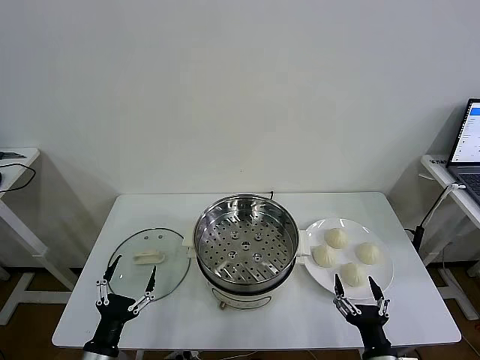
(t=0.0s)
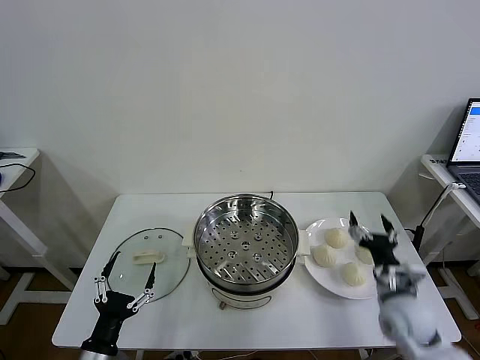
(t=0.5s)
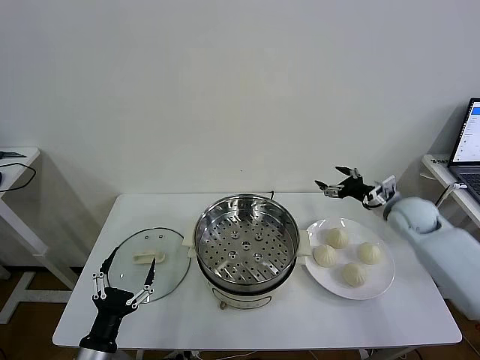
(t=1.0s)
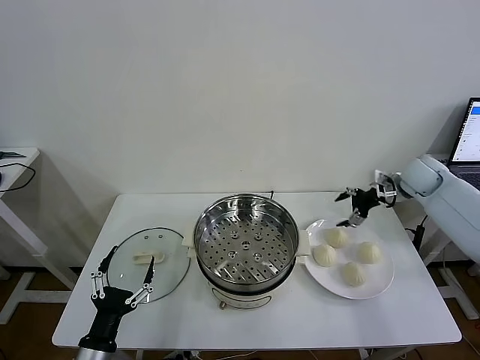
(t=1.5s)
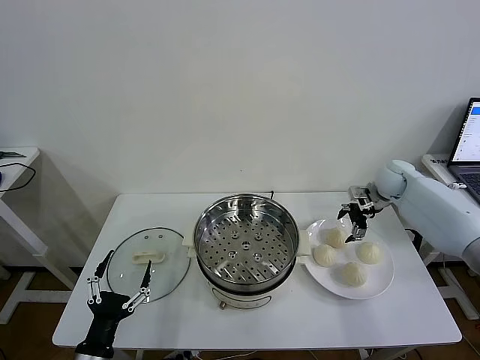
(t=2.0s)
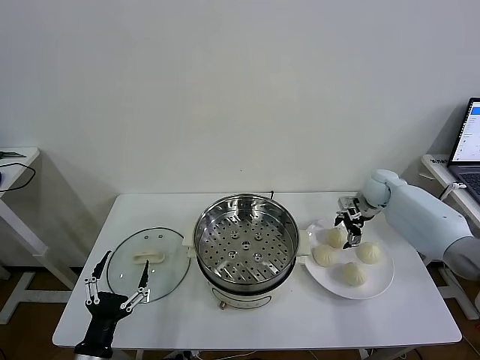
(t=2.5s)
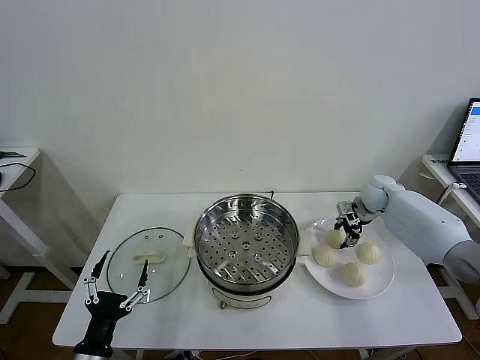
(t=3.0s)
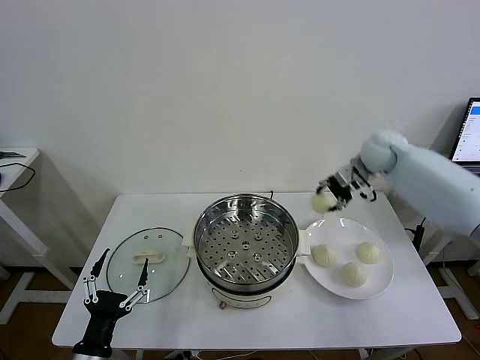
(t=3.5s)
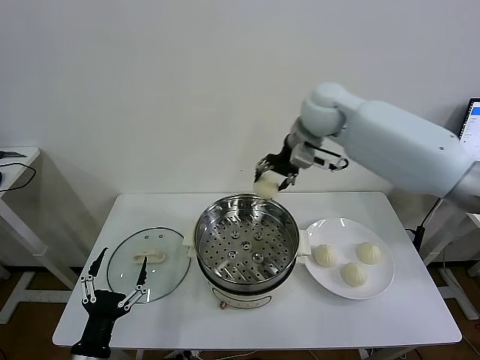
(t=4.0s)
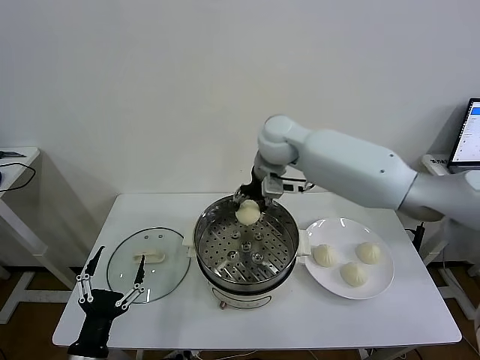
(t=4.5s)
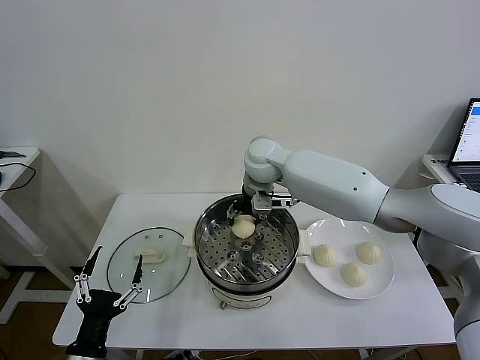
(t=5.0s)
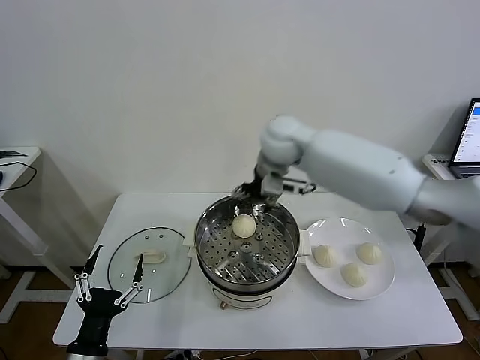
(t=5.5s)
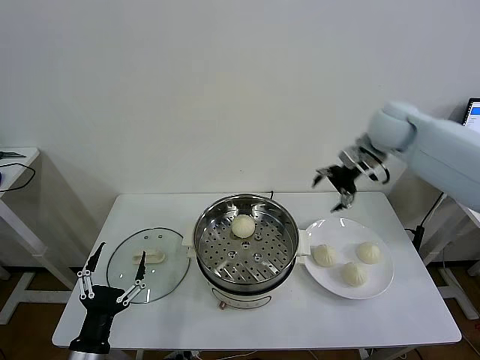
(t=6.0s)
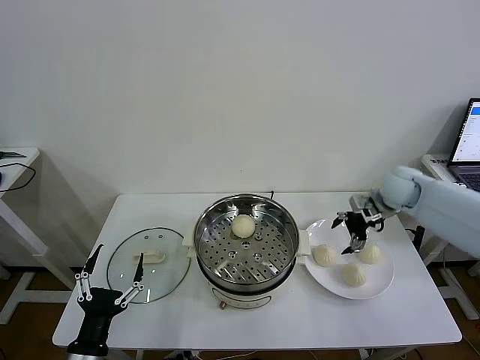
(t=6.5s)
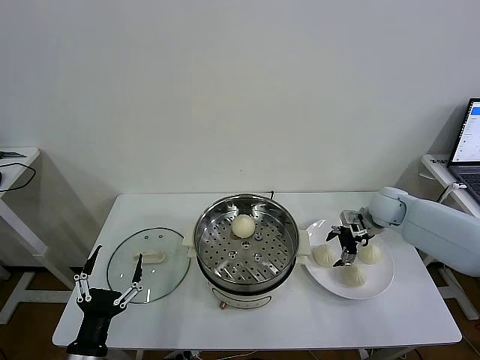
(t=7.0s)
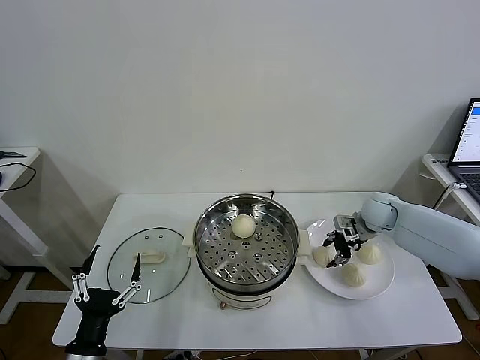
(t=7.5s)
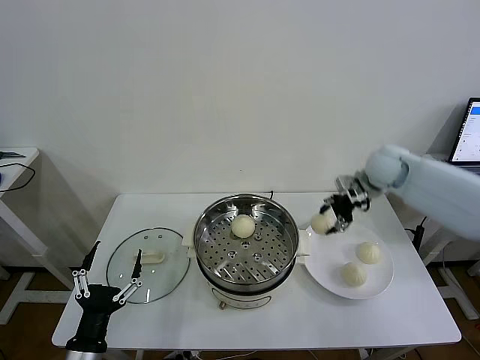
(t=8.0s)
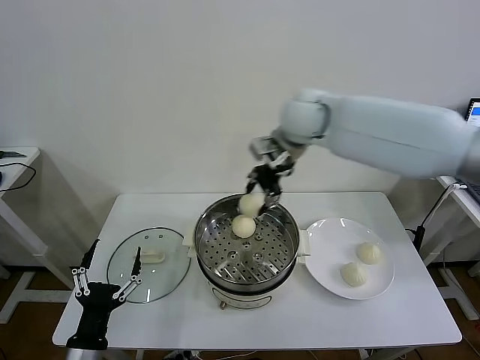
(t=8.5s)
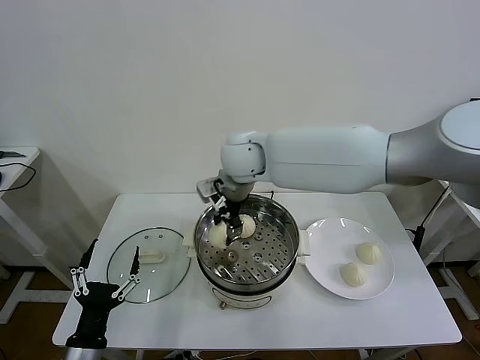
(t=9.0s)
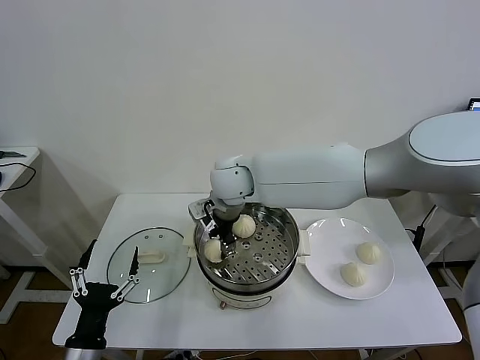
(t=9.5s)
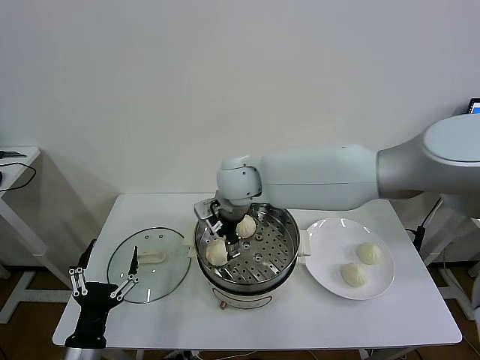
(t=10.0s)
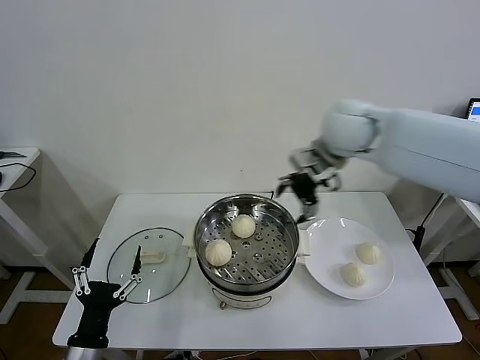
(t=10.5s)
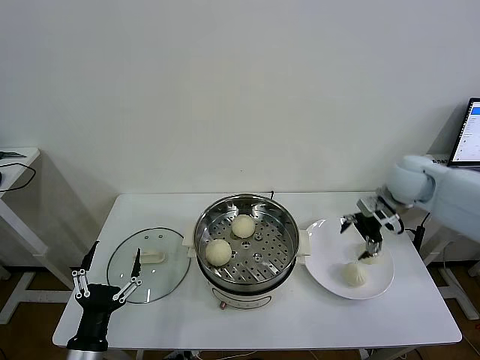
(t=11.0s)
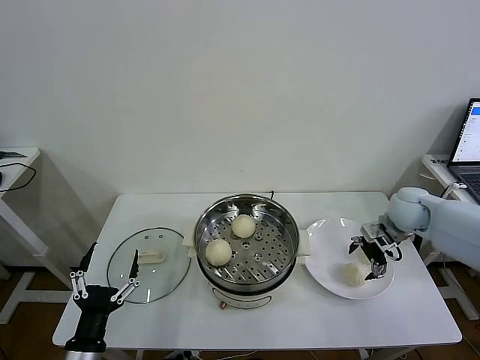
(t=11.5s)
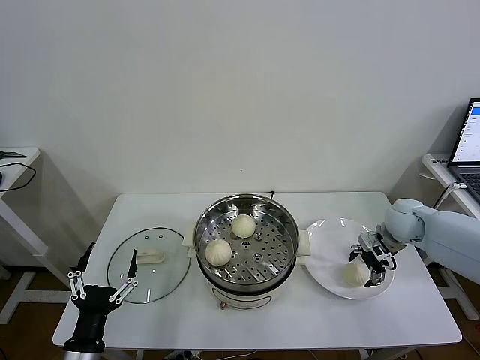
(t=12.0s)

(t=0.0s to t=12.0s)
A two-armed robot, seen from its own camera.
Task of the whole recording: take steamed baozi put them in steamer then cover it.
Step, t=0.0s - t=2.5s: Grasp the baozi in the plate with right gripper.
Step, t=3.0s - t=5.0s: Place the baozi on the steamer with right gripper.
Step, t=5.5s - t=7.5s: Grasp the baozi in the plate with right gripper.
Step, t=8.0s - t=9.5s: Place the baozi on the steamer with right gripper.
t=2.0s - t=4.0s: The right gripper heads to the left and upward, covering about 35 cm, and closes up.
t=4.0s - t=6.0s: The right gripper is displaced to the right by roughly 20 cm, and opens its fingers.
t=6.0s - t=8.0s: The right gripper reaches approximately 20 cm downward, then returns, and closes its fingers.
t=8.0s - t=10.0s: The right gripper heads to the left, covering roughly 30 cm, and opens.
t=10.0s - t=12.0s: The right gripper shifts roughly 40 cm to the right.

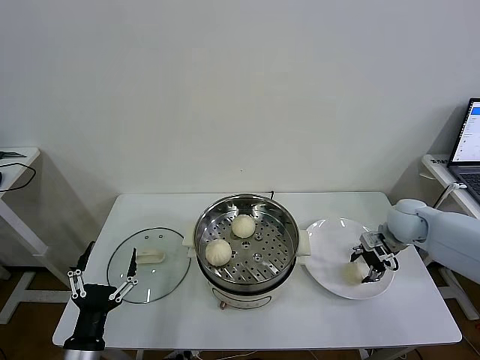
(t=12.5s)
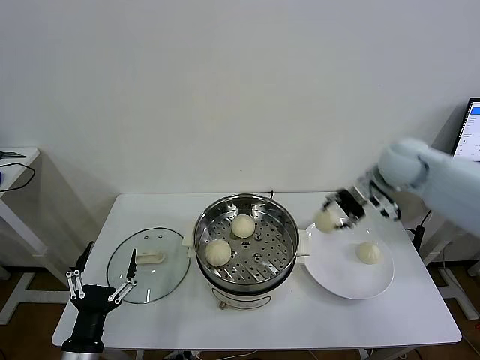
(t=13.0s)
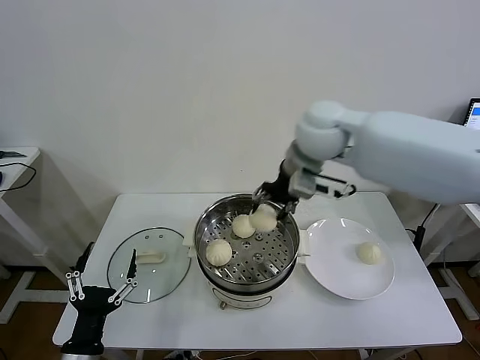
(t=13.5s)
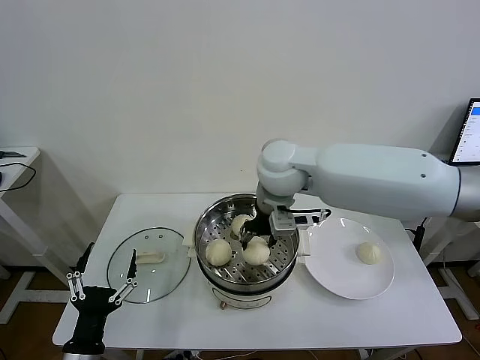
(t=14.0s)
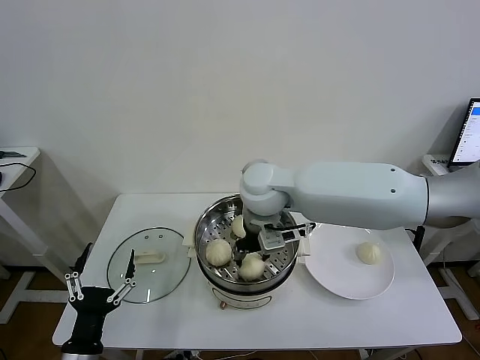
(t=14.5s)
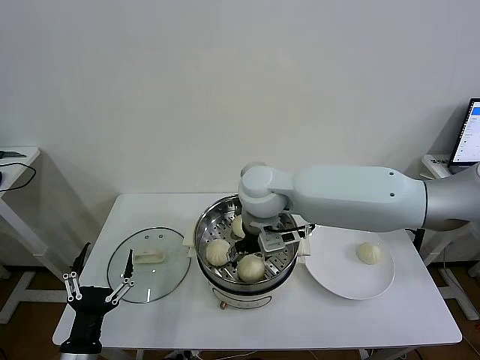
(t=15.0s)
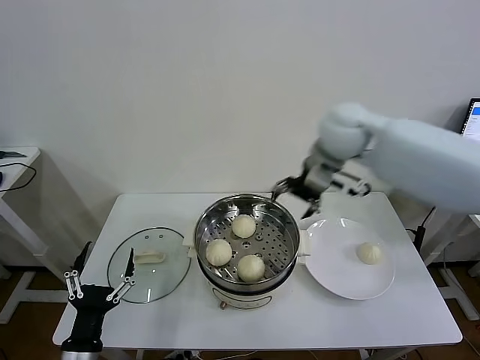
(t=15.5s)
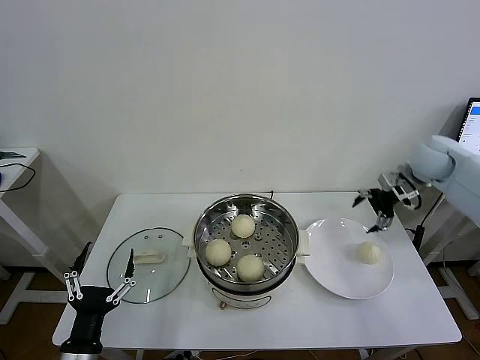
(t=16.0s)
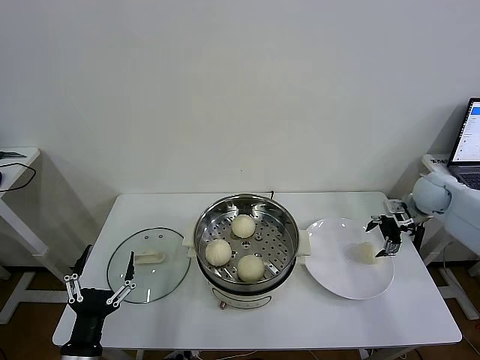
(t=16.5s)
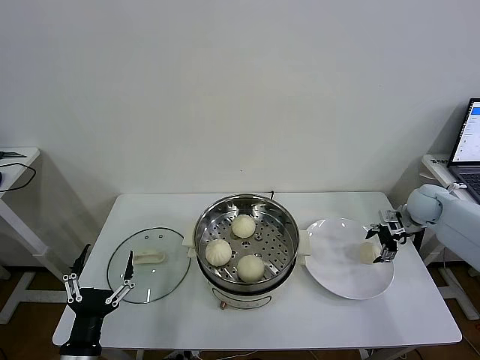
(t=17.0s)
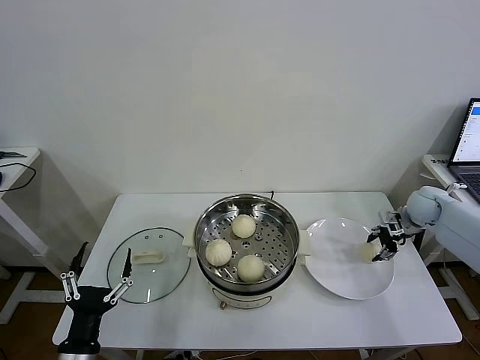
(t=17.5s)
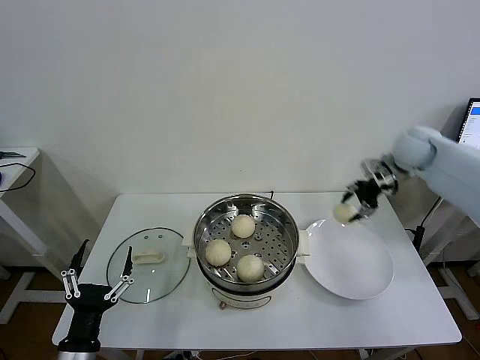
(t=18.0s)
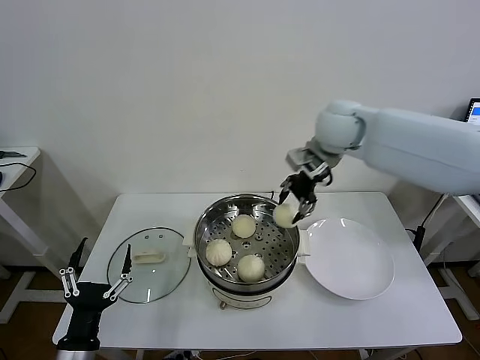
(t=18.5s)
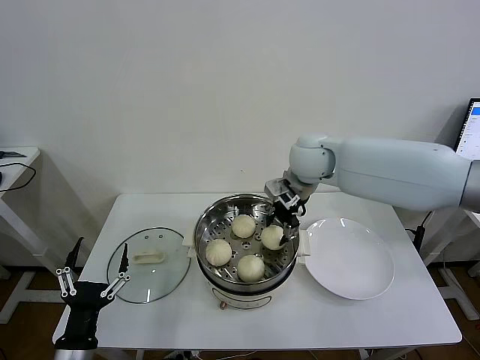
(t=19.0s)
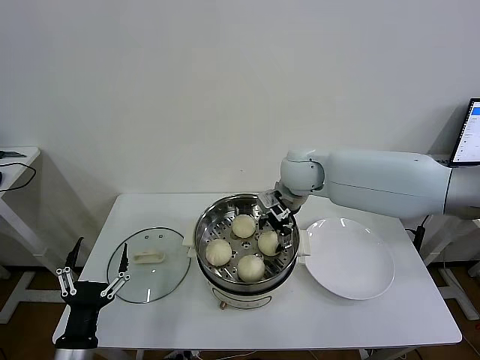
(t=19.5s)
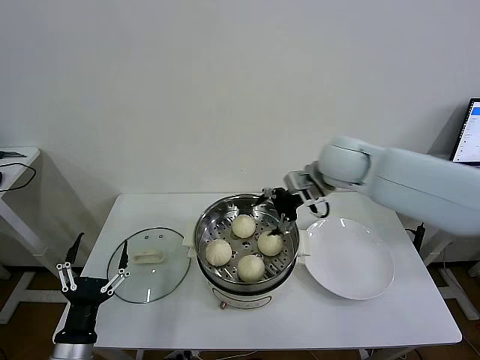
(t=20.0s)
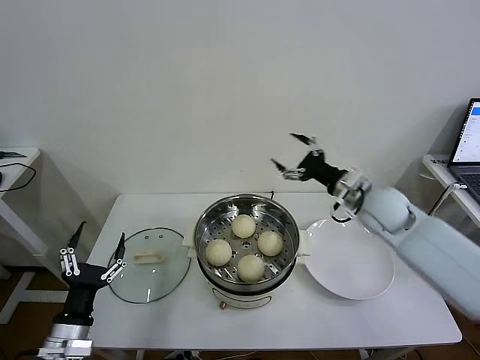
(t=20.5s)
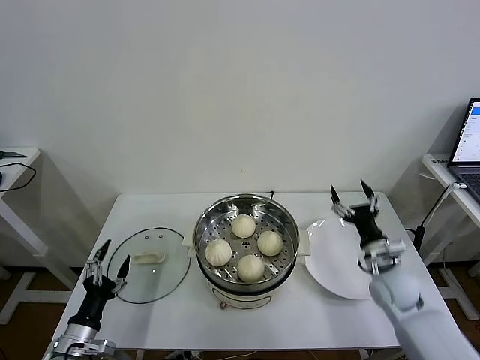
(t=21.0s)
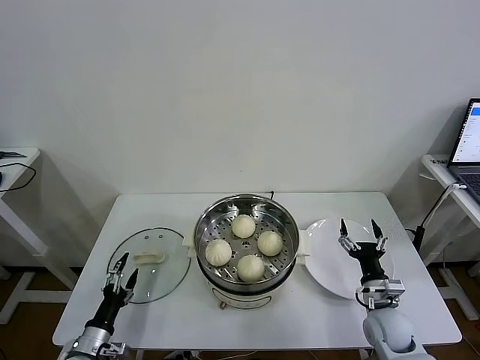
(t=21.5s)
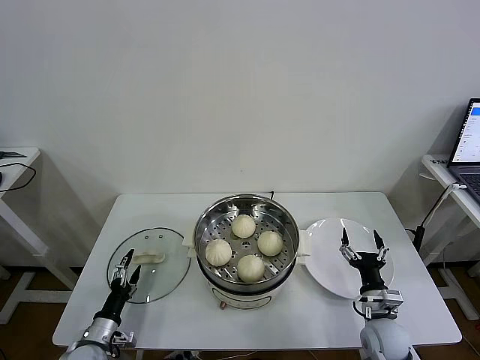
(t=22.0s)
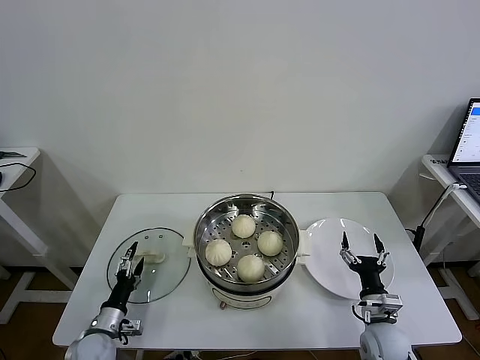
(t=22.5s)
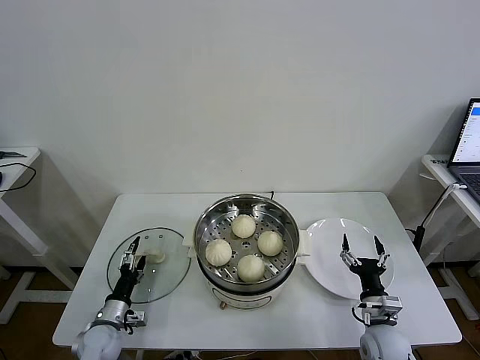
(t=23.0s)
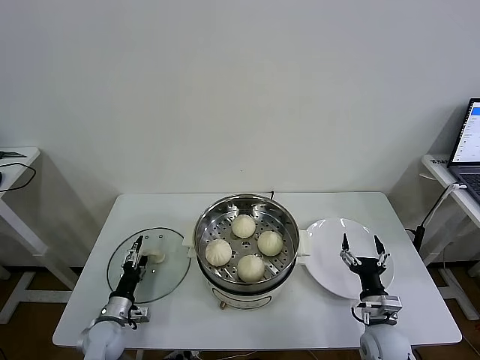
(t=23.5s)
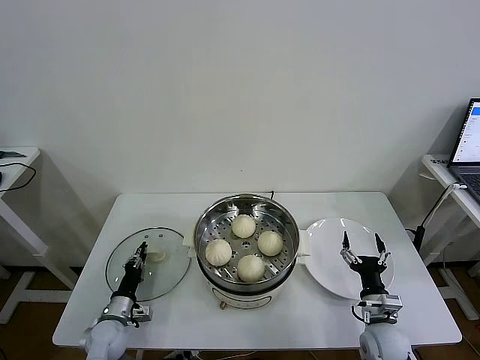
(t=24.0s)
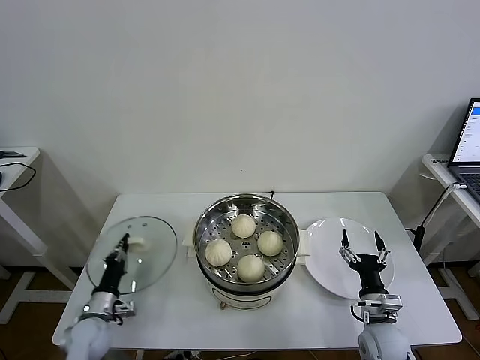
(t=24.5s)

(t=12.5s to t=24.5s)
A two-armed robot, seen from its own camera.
Task of the whole recording: take steamed baozi put them in steamer then cover it.
Step, t=12.5s - t=15.0s: Place the baozi on the steamer with right gripper.
Step, t=15.5s - t=17.0s: Grasp the baozi in the plate with right gripper.
Step, t=17.5s - t=19.5s: Place the baozi on the steamer with right gripper.
Step, t=20.0s - t=24.0s: Grasp the pot lid with left gripper.
t=12.5s - t=14.5s: The right gripper shifts approximately 35 cm to the left.
t=14.5s - t=16.5s: The right gripper travels to the right by roughly 40 cm, and opens its fingers.
t=16.5s - t=18.5s: The right gripper travels to the left and upward by roughly 35 cm, and closes.
t=18.5s - t=20.5s: The right gripper travels downward, to the right and backward by approximately 20 cm, and opens up.
t=20.5s - t=22.5s: The right gripper moves downward and backward, roughly 30 cm. The left gripper goes roughly 20 cm downward and forward.
t=22.5s - t=24.5s: The left gripper closes its fingers.

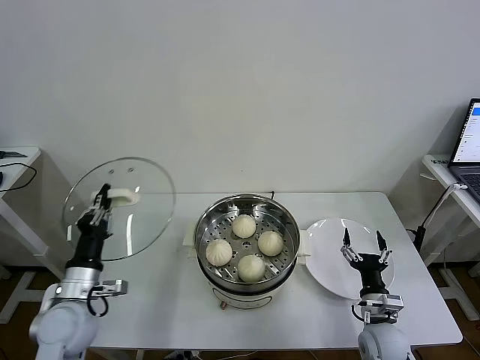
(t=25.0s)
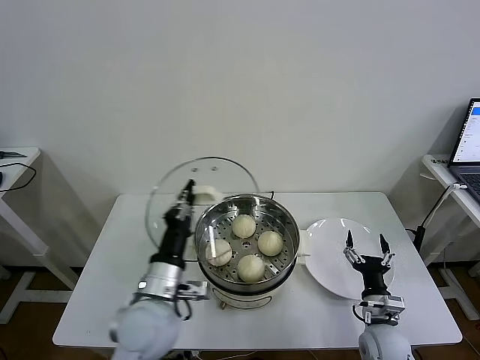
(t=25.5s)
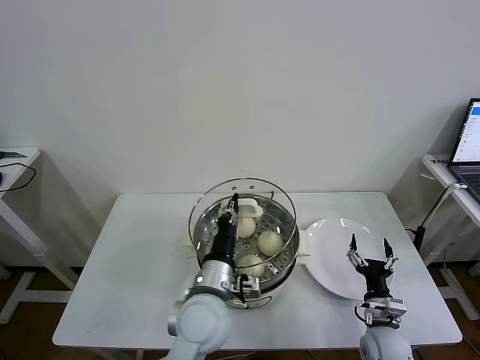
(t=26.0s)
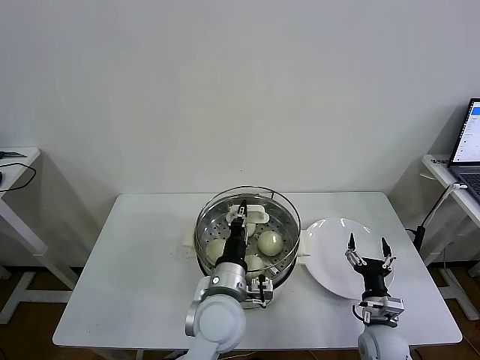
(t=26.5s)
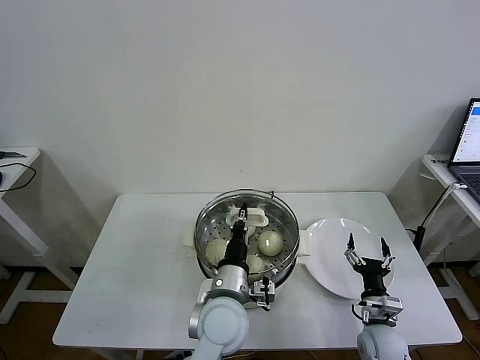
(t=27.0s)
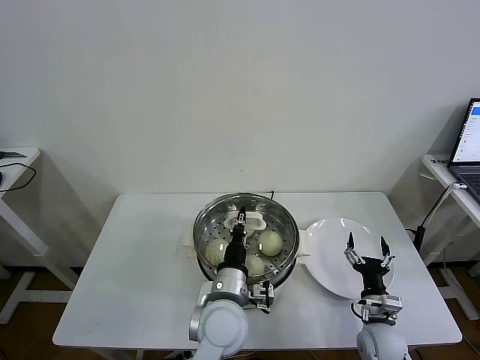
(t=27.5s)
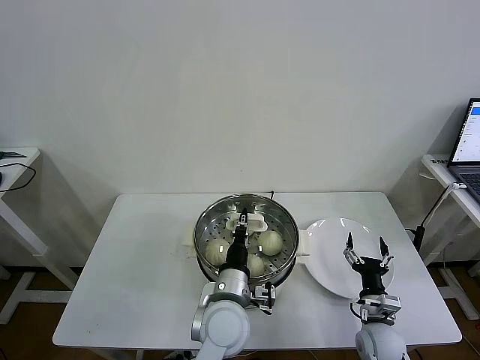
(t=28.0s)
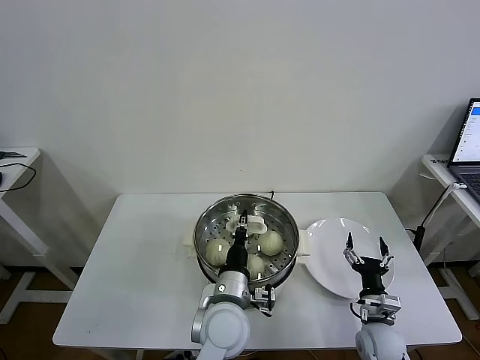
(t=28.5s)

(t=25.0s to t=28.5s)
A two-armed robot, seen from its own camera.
Task of the whole recording: take steamed baozi put them in steamer then cover it.
t=25.0s - t=27.0s: The left gripper is displaced to the right by some 30 cm.
t=27.0s - t=28.5s: The grippers move only a little.
